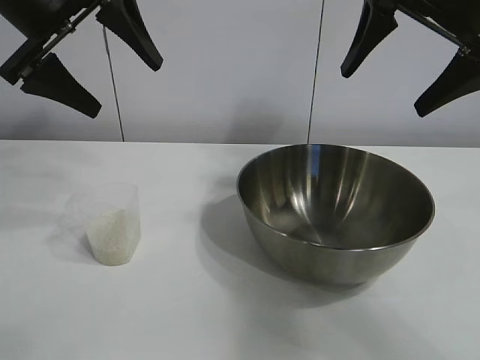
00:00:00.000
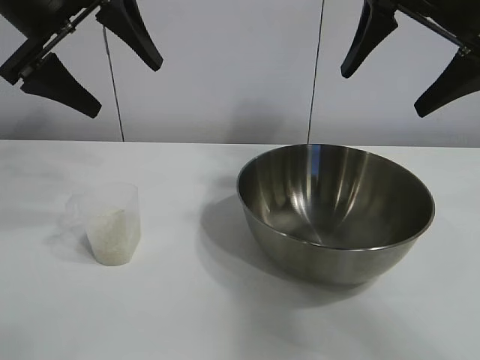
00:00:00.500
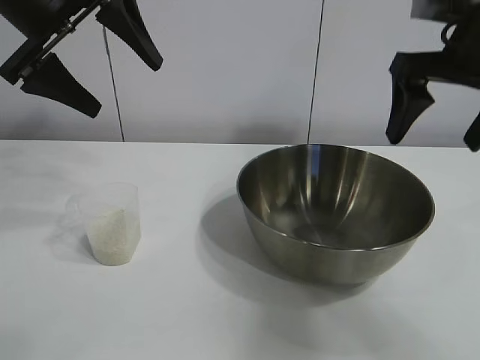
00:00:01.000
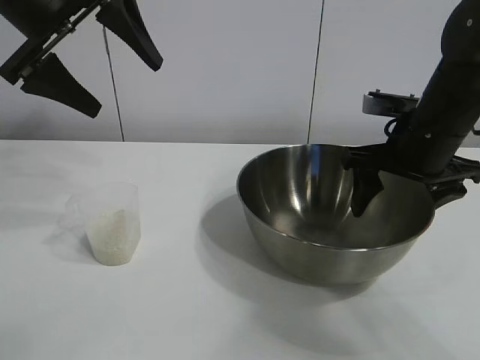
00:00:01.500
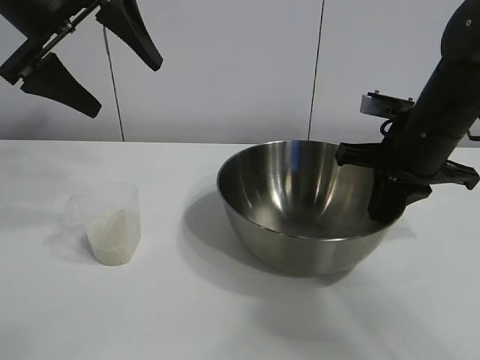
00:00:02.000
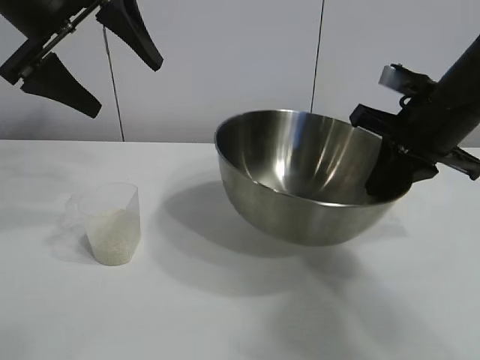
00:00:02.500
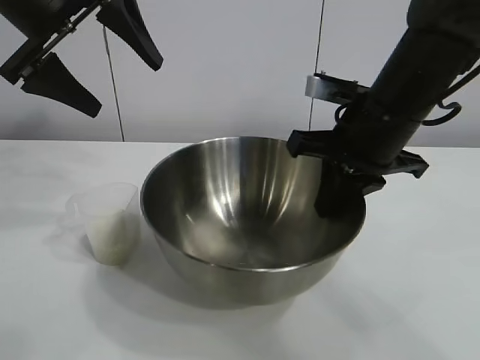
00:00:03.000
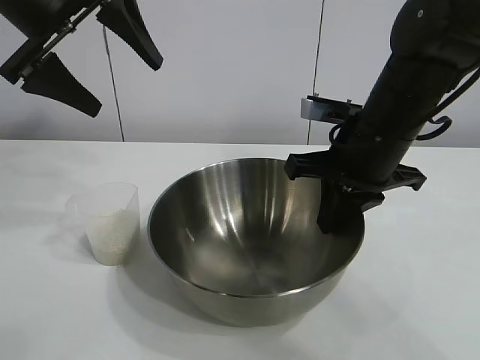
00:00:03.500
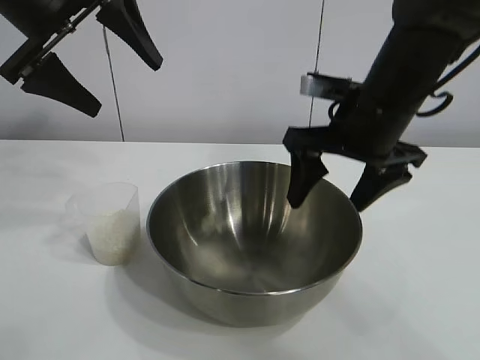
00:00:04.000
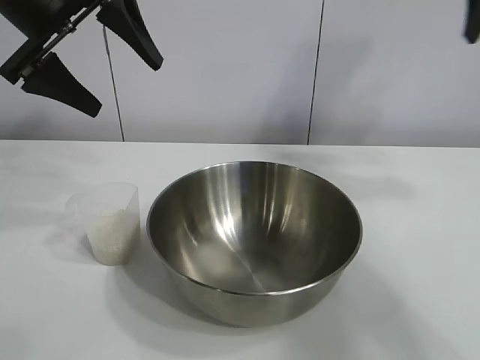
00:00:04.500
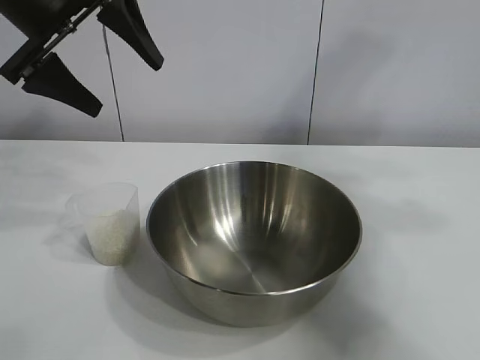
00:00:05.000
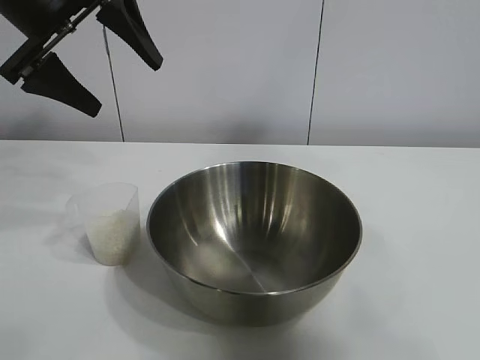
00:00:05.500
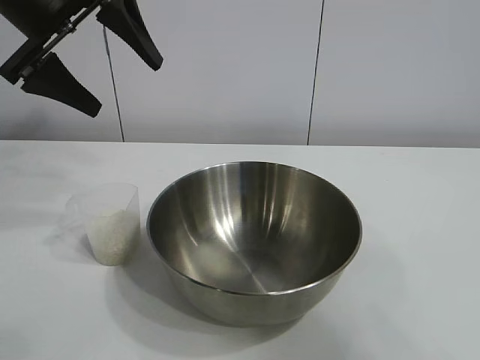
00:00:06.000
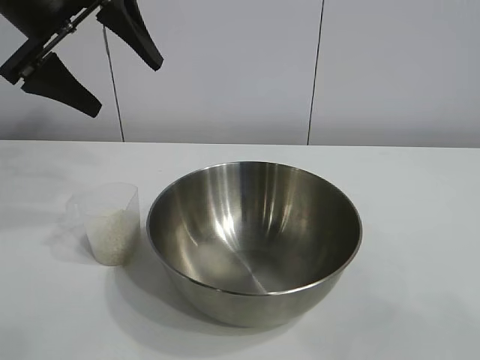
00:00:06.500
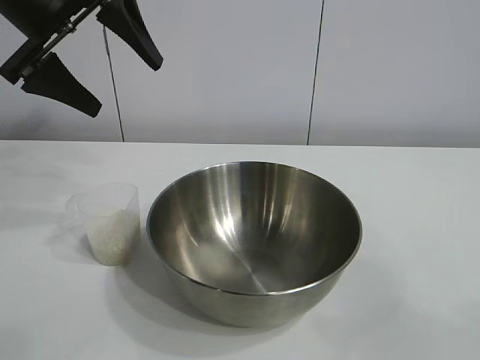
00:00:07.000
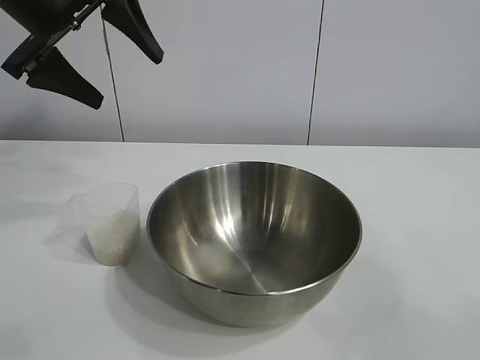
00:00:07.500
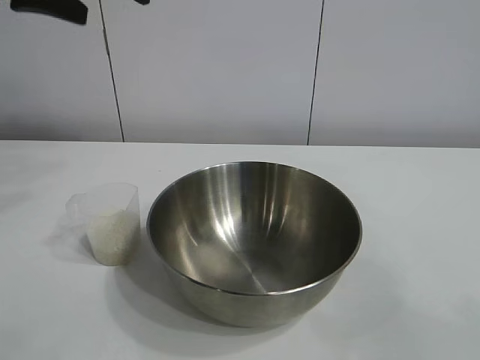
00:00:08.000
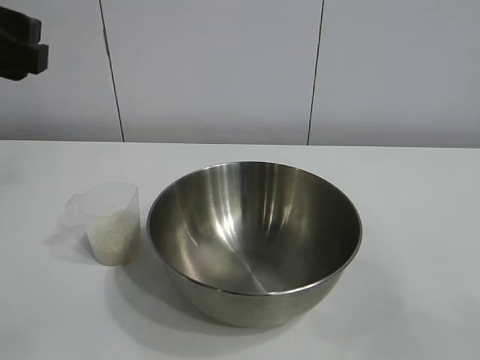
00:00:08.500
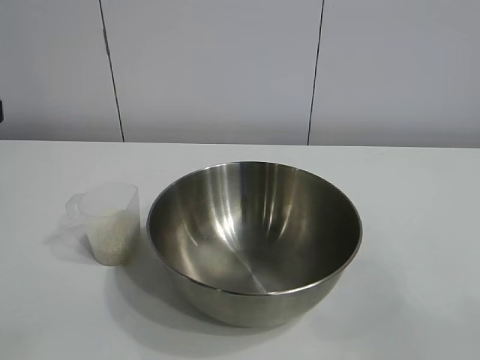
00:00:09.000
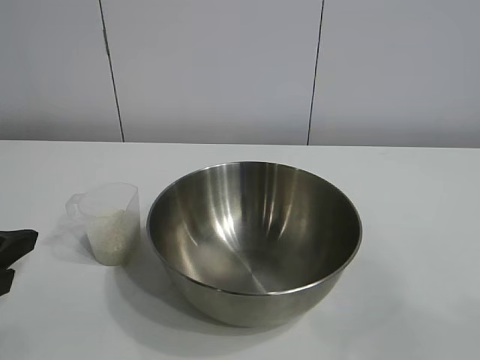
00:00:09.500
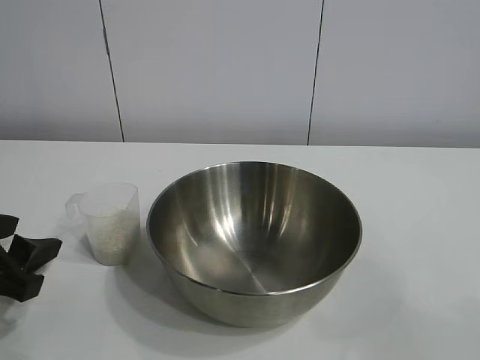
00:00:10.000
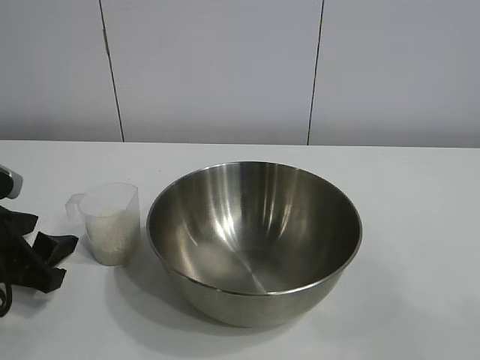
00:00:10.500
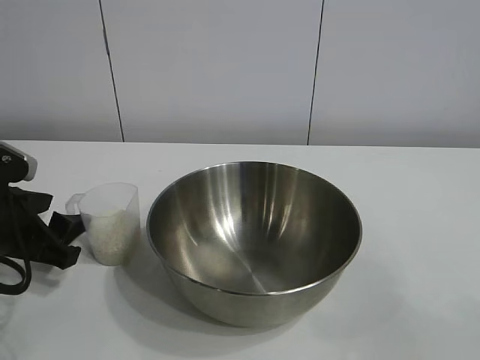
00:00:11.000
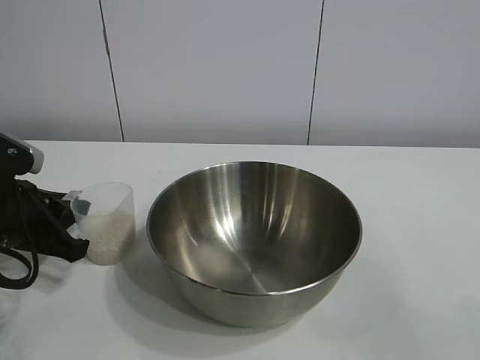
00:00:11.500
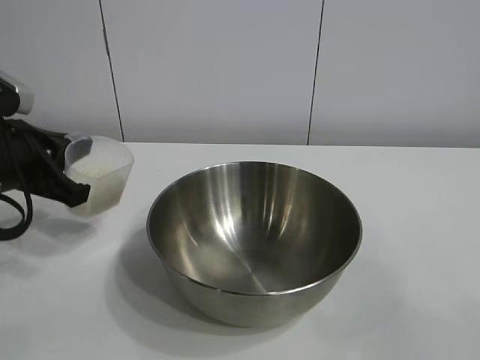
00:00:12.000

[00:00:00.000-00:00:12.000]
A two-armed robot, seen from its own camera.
Task of the whole recording: the right gripper grasp the rice container and place it in the center of the table, the left gripper grasp the rice scoop and pour the rice into the rice container.
Step, 00:00:01.000 to 00:00:03.500: Move the bowl in the center of view with right gripper.
Step, 00:00:04.000 to 00:00:11.500: Grasp the cup with rice in it with left gripper.

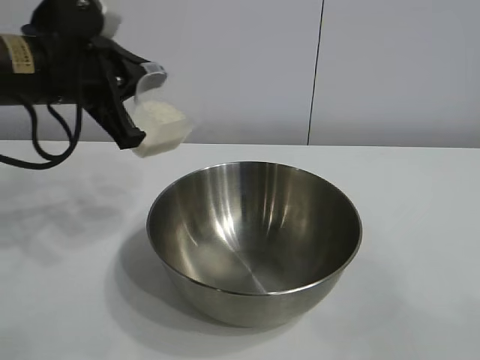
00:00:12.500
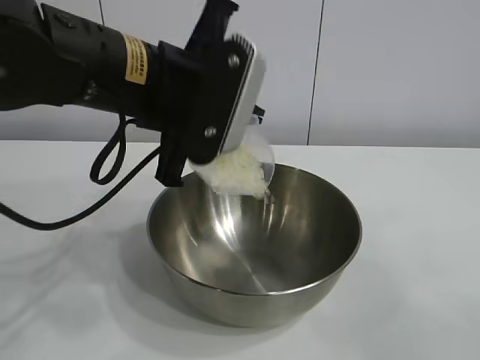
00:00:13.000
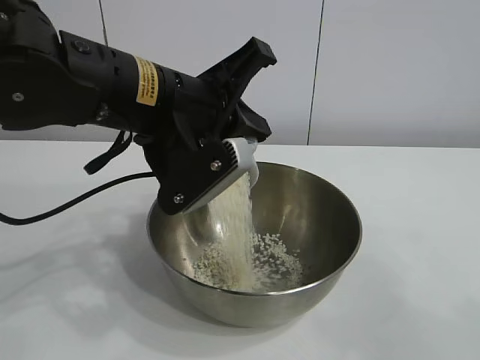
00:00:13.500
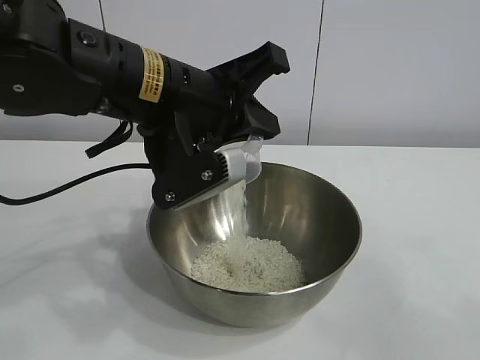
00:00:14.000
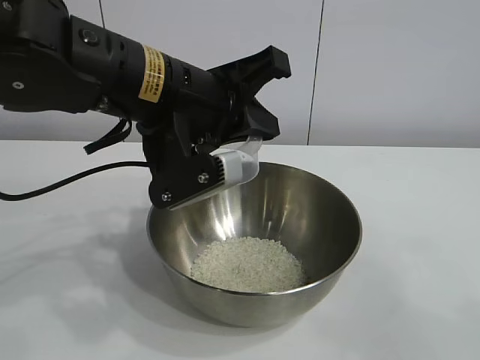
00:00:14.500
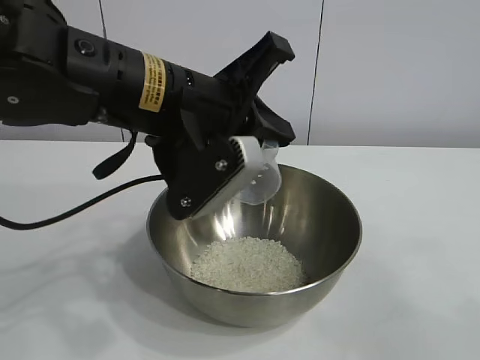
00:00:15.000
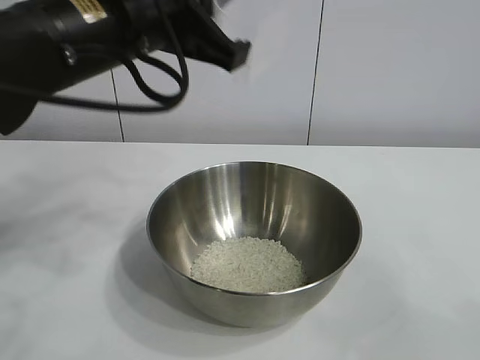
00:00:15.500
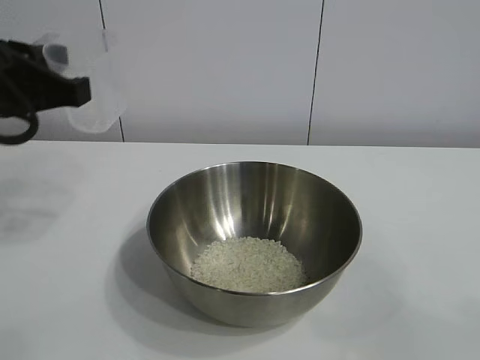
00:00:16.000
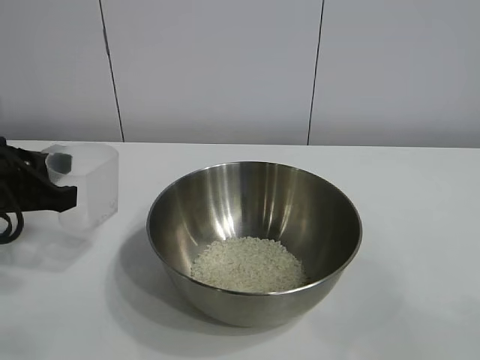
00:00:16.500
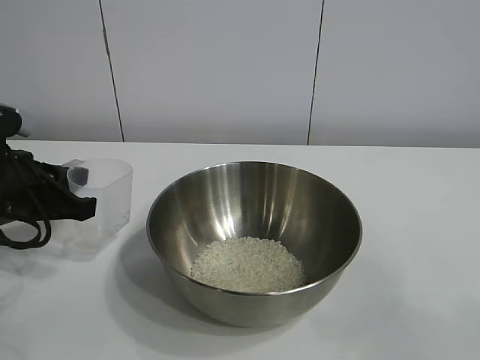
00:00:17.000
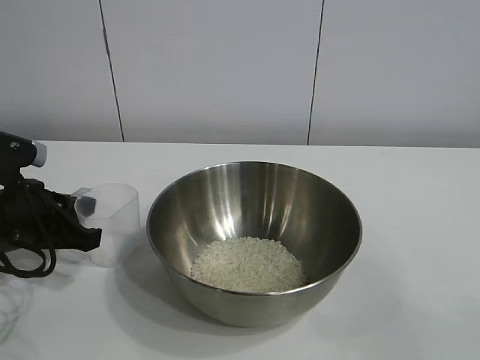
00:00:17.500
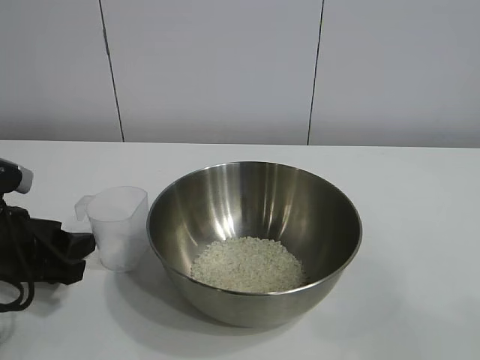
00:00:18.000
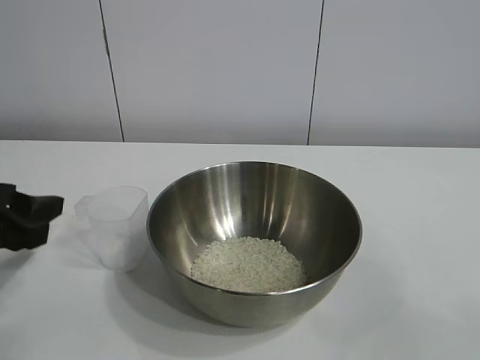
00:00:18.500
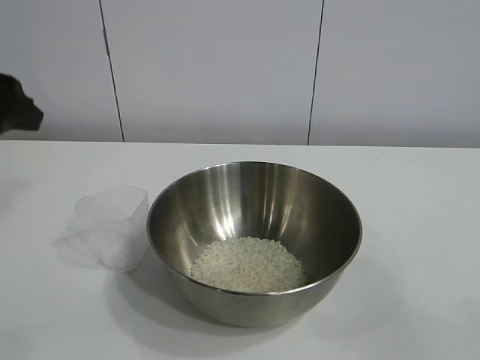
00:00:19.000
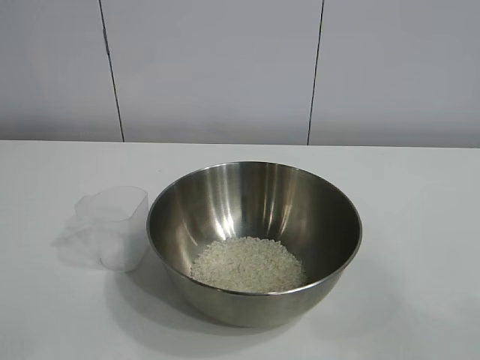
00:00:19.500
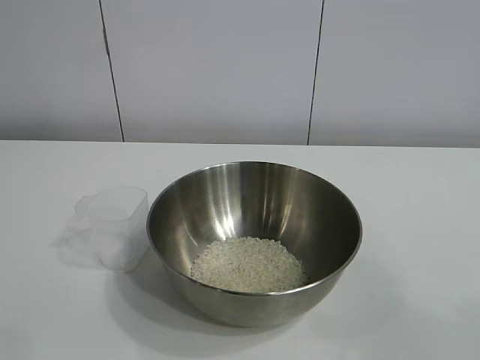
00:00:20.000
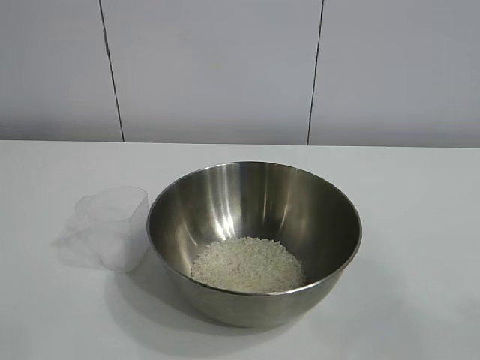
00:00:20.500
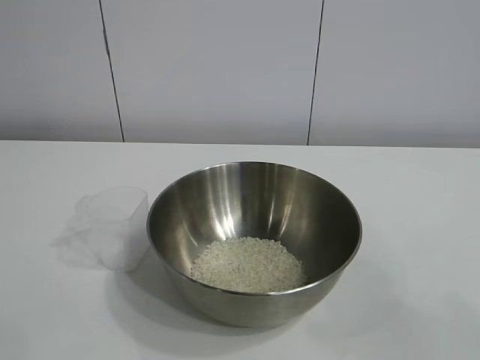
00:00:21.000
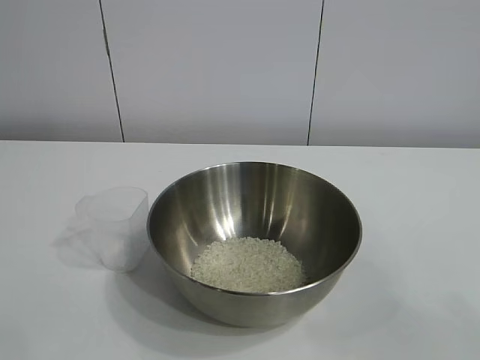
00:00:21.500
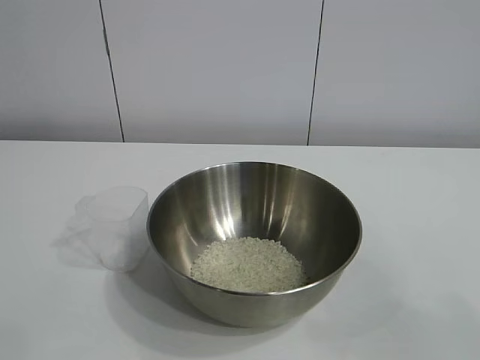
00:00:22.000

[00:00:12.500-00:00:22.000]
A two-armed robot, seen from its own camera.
Task of the whole recording: the right gripper grasp the rice container and place it in the center of the table, the left gripper grasp the rice scoop and pour the rice into the rice container.
Step, 00:00:12.500 to 00:00:14.500: Pour the rice from the cup into the bowl with the left gripper.
Step, 00:00:15.500 to 00:00:17.500: Place the cup on the table with the left gripper.

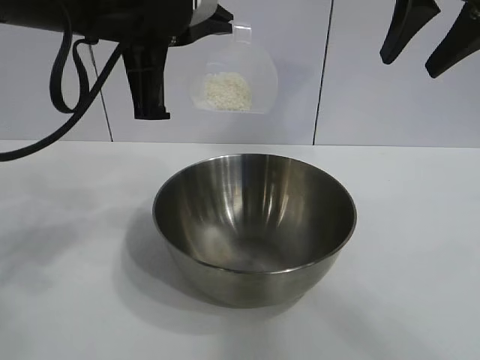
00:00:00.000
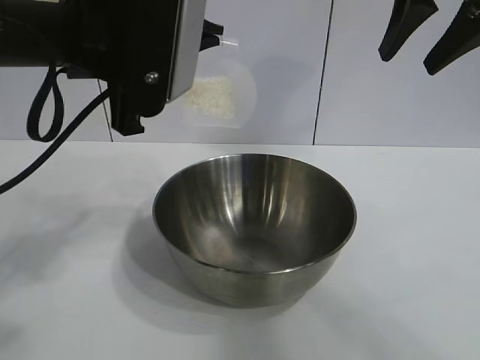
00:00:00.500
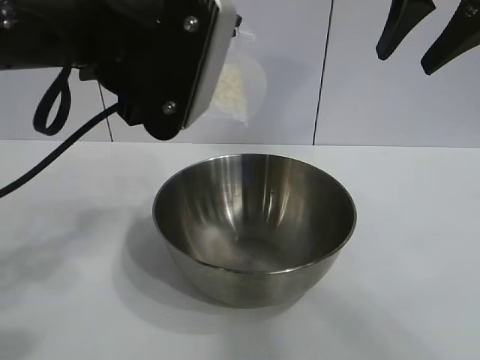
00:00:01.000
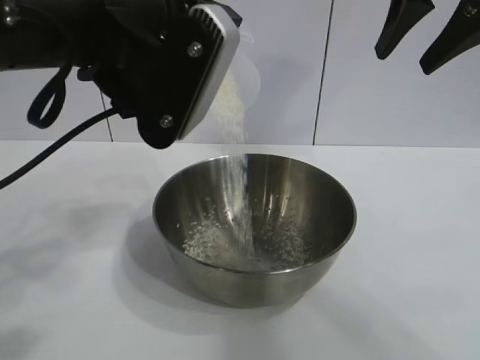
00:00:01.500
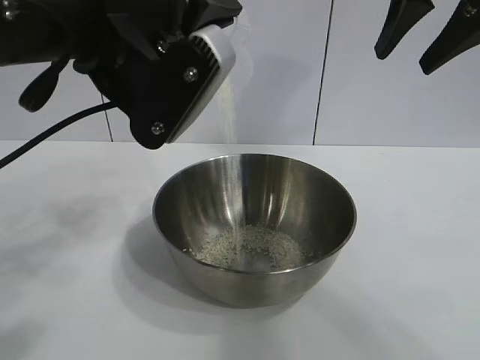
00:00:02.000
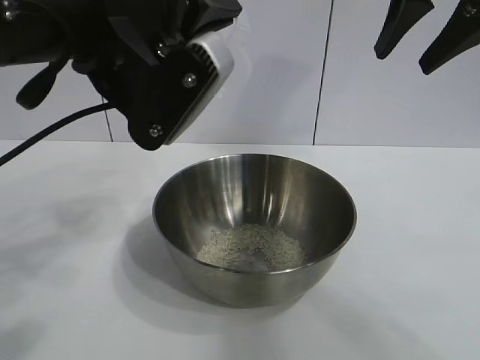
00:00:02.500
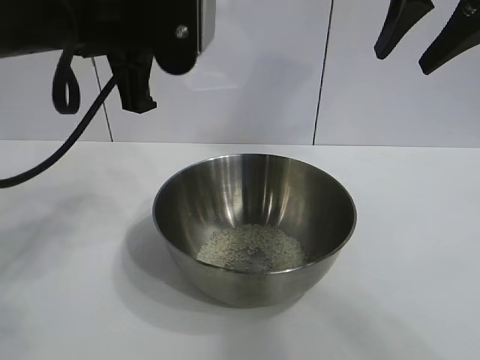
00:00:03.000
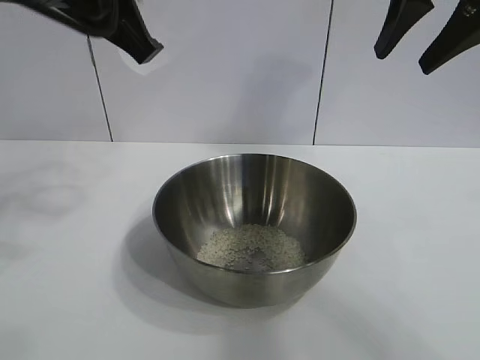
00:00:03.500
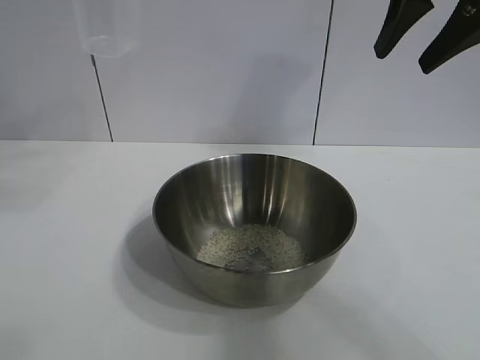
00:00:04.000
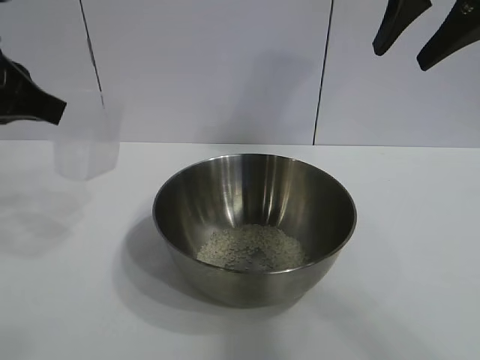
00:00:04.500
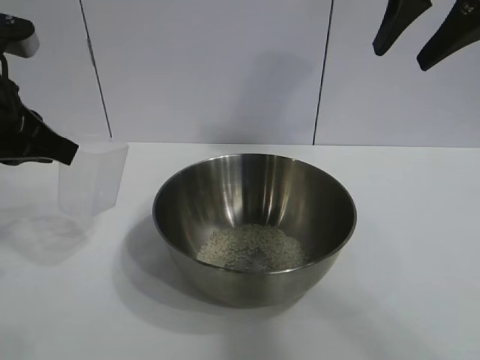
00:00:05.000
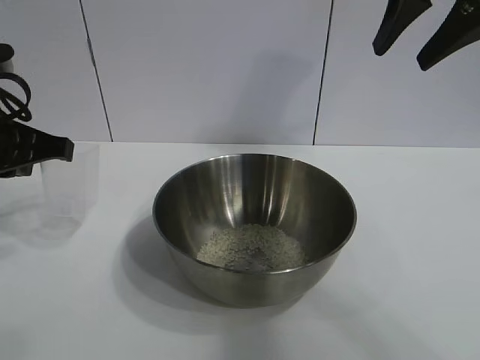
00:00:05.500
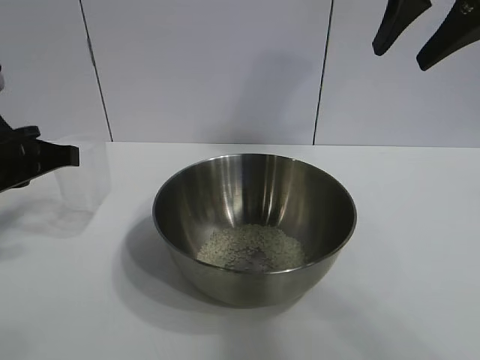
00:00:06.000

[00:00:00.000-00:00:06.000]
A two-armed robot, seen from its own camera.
Task of the whole recording: the right gripper grasp the rice container and place it in the center of the table, the left gripper grasp the rice scoop and pour the rice into the rice container.
Step, 00:00:00.000 to 00:00:02.000: Pour the rice from the cup into the bowl with the left gripper.
